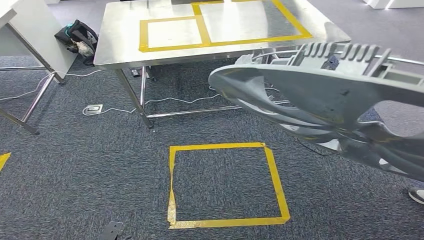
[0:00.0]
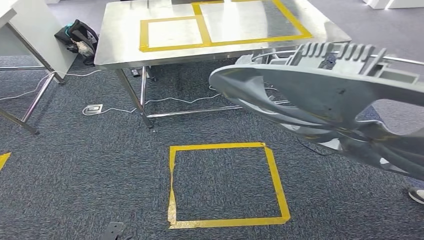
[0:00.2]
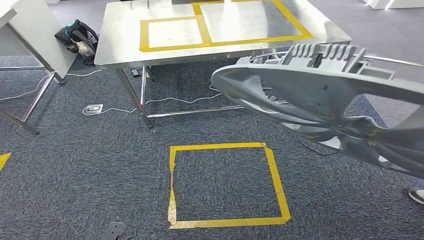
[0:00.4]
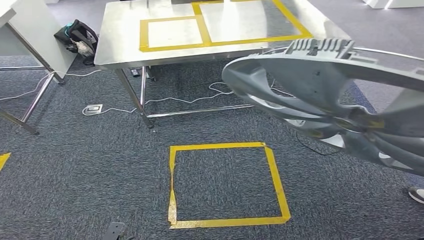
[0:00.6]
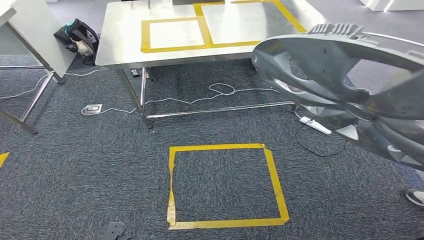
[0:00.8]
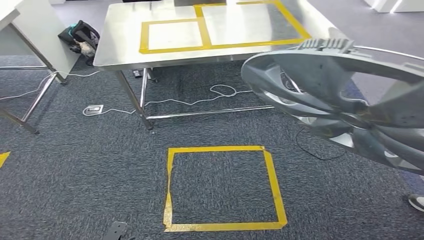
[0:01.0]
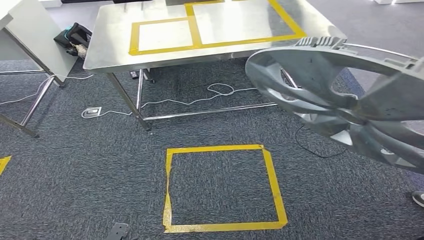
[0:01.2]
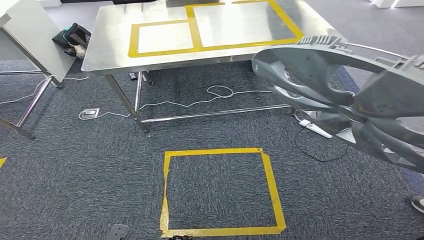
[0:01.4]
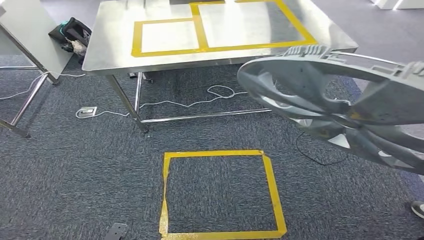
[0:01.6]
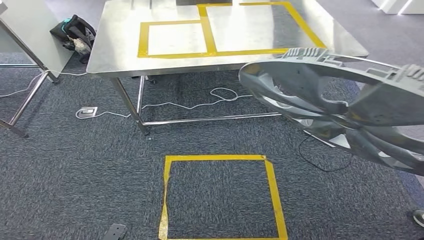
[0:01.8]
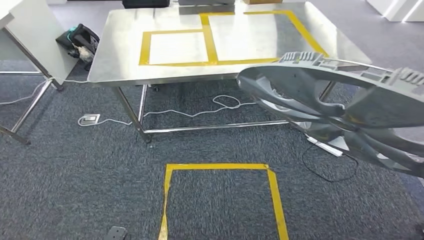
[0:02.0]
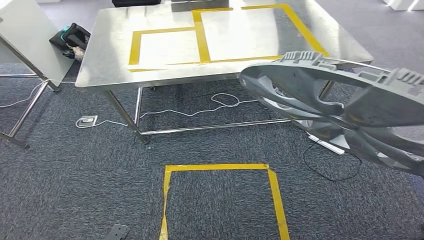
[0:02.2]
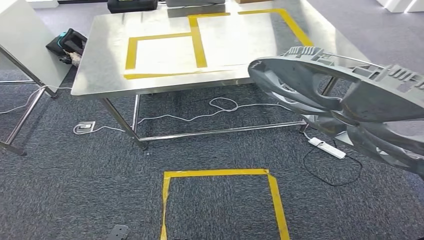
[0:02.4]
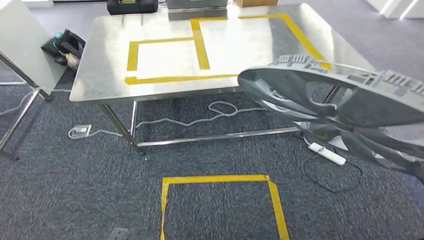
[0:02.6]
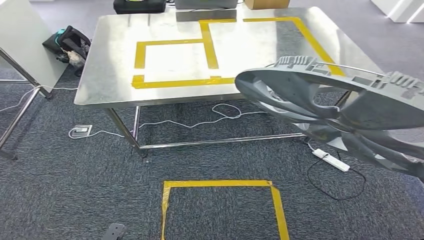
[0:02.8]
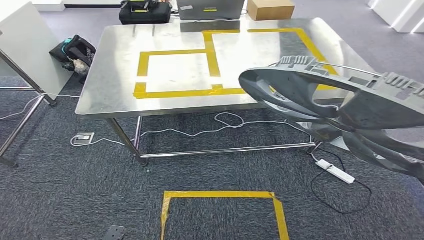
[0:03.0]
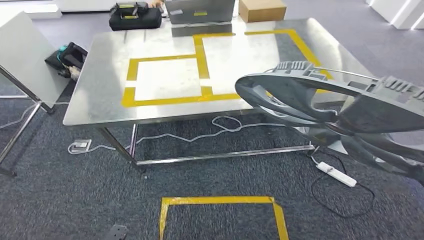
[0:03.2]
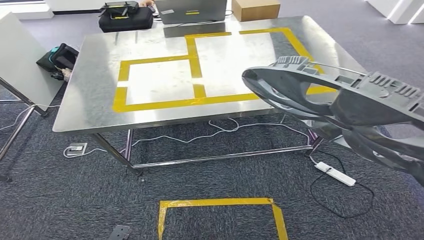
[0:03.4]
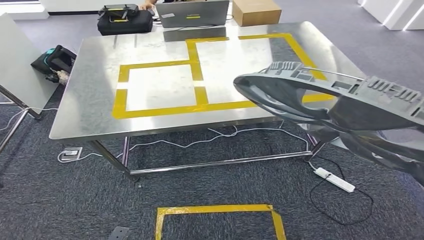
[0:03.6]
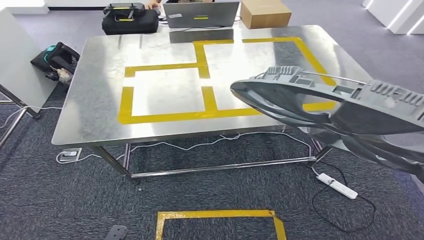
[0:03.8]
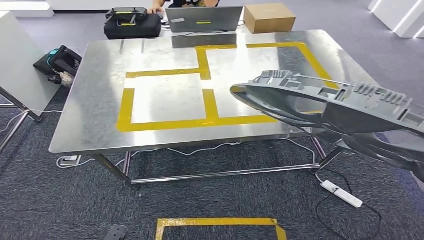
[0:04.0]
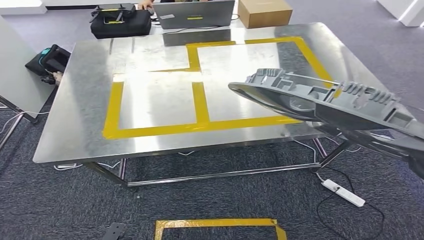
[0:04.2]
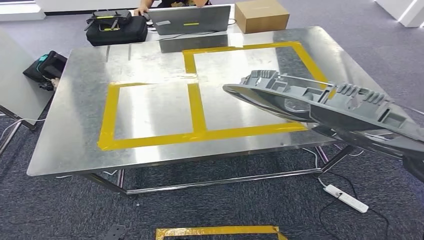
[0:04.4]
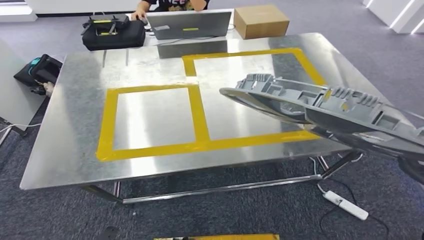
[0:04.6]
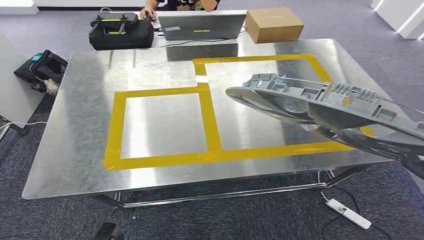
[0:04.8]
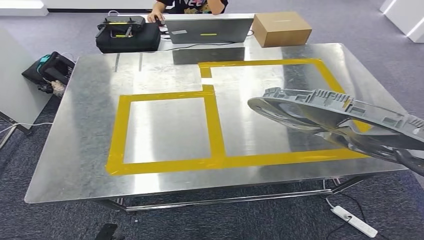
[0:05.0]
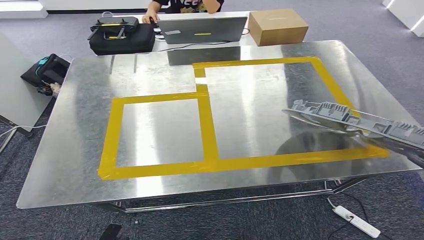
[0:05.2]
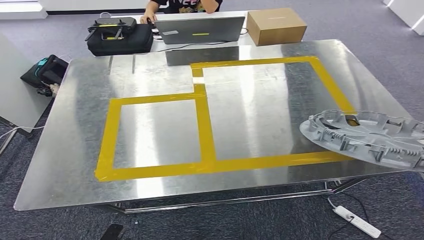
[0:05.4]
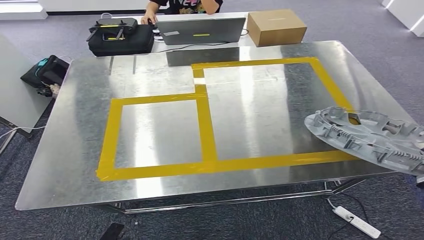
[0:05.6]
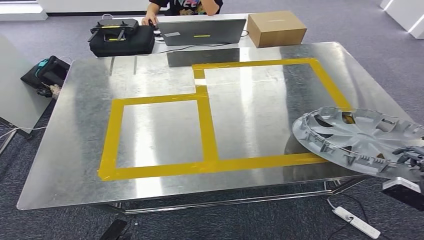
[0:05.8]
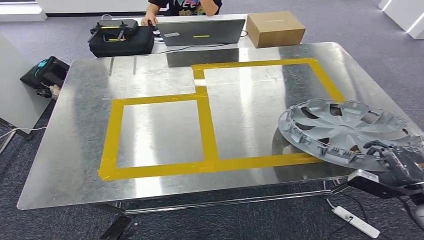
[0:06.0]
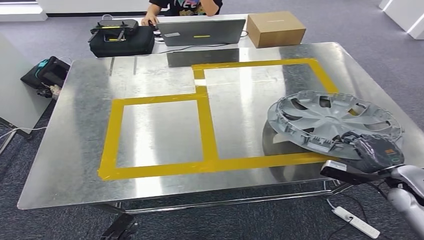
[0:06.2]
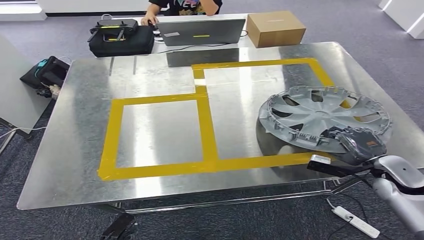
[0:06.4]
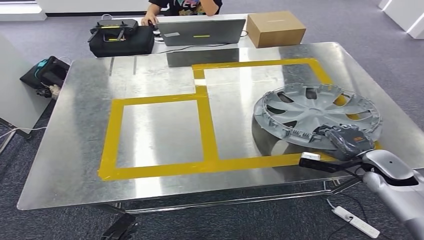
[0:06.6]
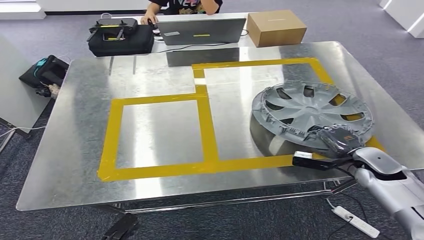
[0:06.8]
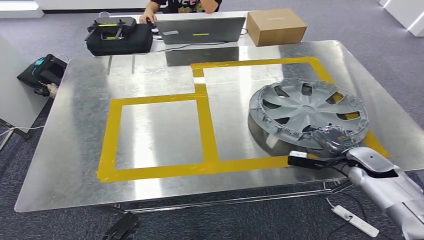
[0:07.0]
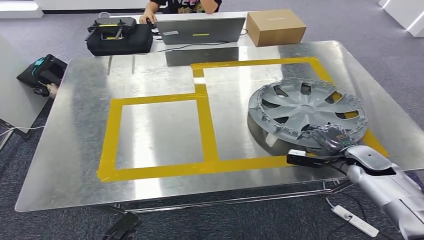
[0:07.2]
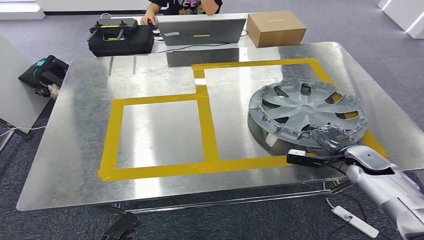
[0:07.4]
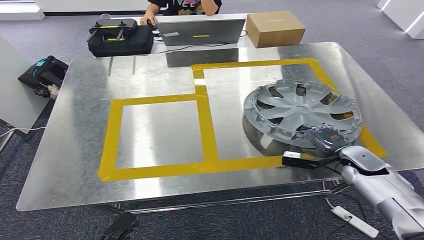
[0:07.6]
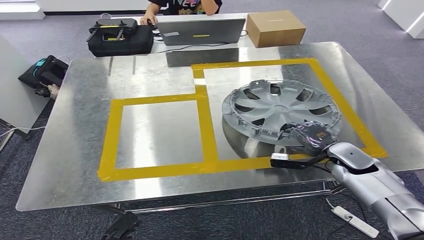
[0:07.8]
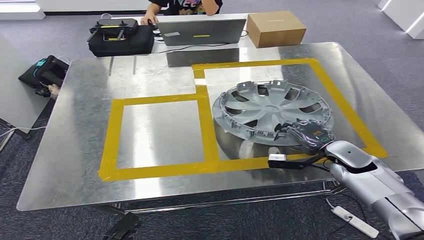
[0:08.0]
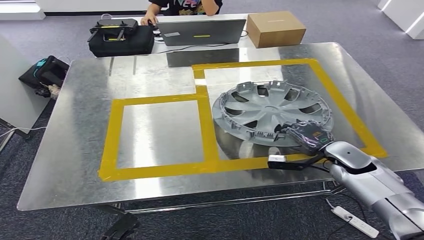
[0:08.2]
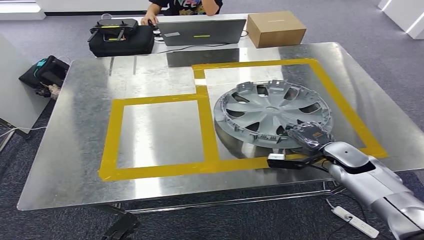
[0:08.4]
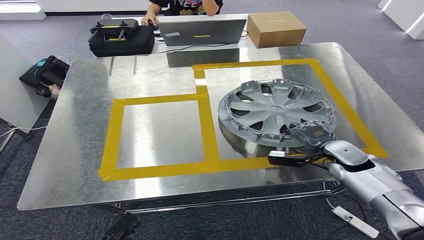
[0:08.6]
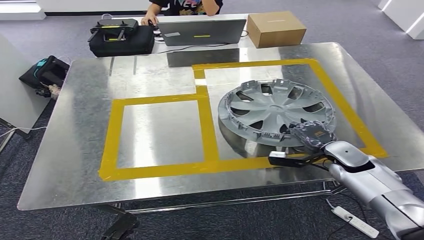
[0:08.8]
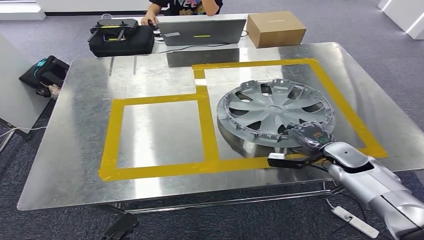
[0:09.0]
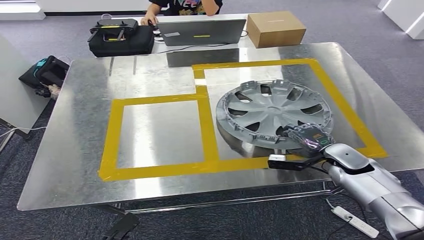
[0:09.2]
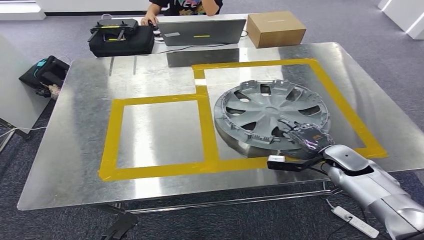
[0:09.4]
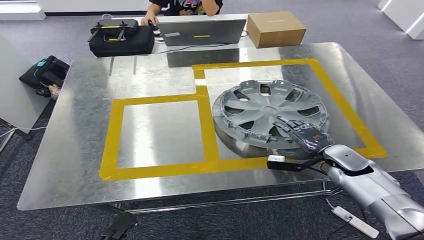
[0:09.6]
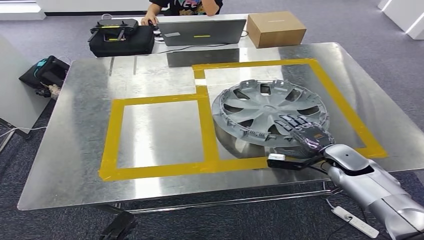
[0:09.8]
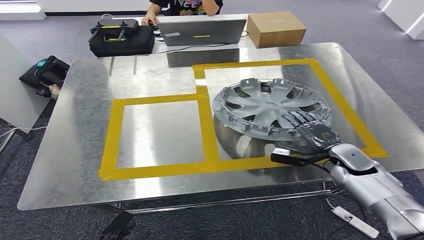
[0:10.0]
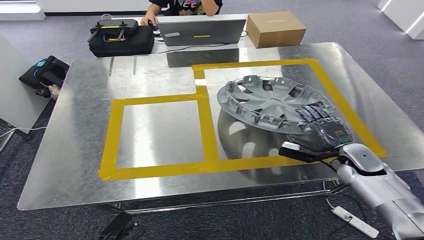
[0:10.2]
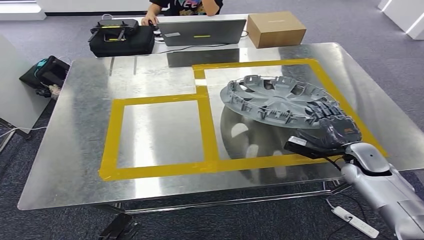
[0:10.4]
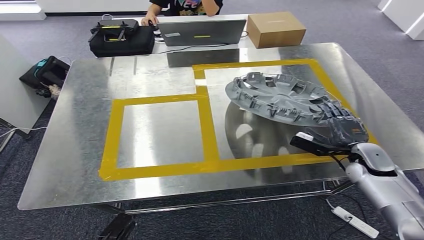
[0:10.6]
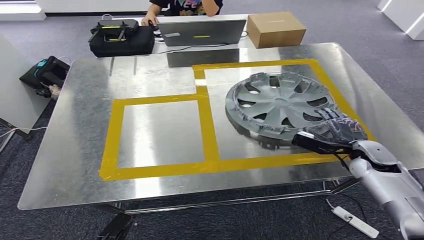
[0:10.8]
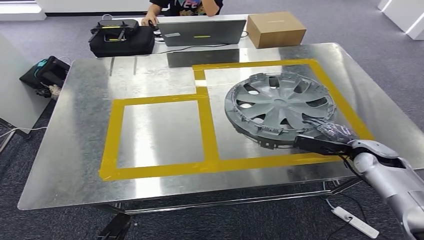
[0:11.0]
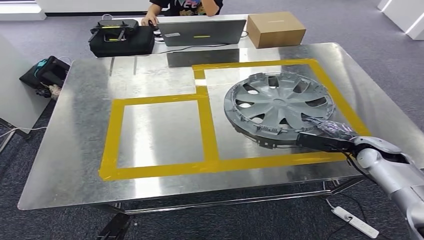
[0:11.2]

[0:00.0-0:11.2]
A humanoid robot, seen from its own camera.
Step, 0:00.0 to 0:10.8: Insert the small parts into the corresponding slots on the workbench.
0:06.4 to 0:08.0: The right hand is displaced to the left and forward by about 10 cm.
0:08.0 to 0:09.6: The hands make only small movements.
0:09.6 to 0:11.2: The right hand heads to the right, covering roughly 5 cm.
